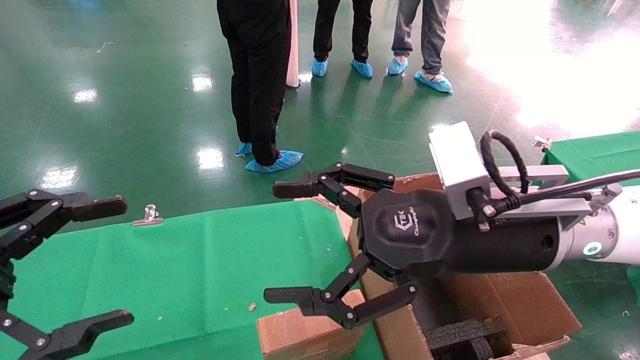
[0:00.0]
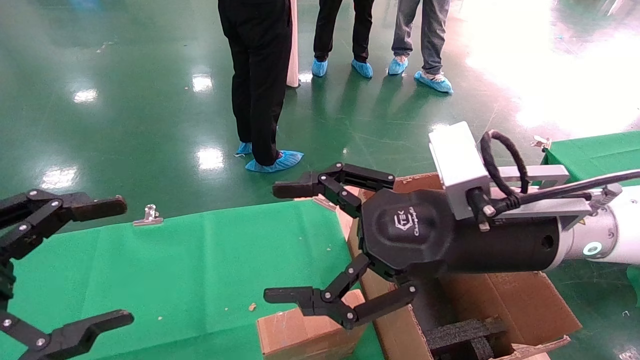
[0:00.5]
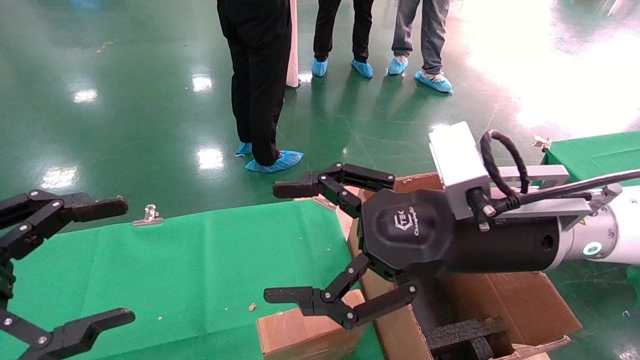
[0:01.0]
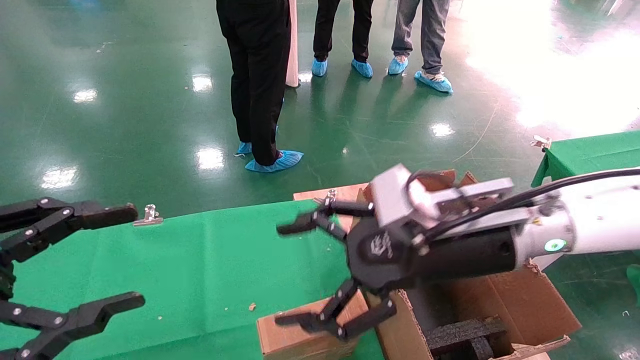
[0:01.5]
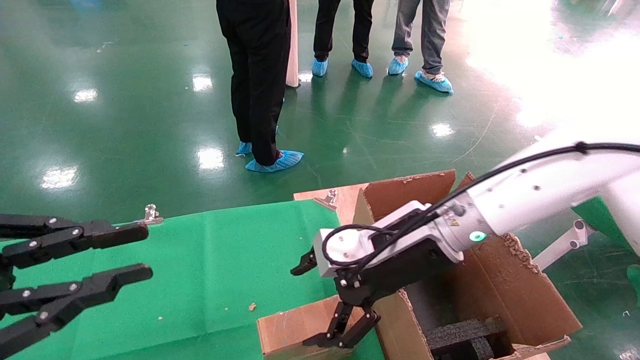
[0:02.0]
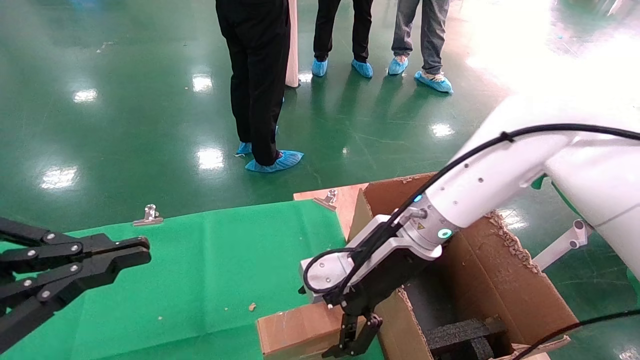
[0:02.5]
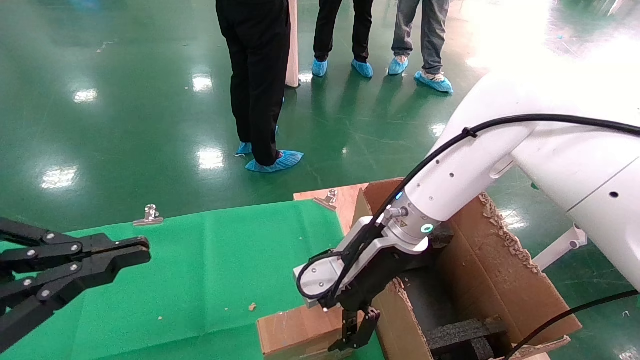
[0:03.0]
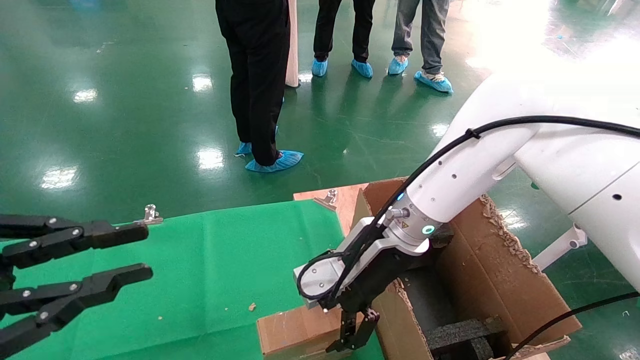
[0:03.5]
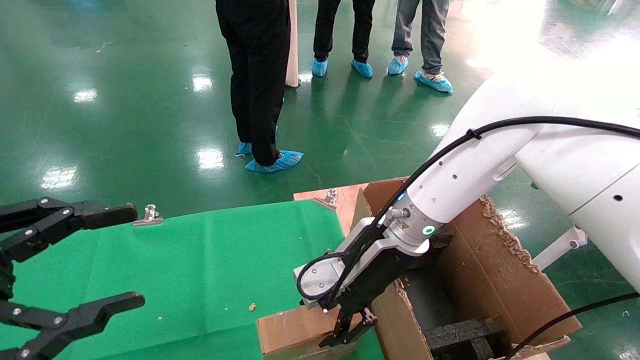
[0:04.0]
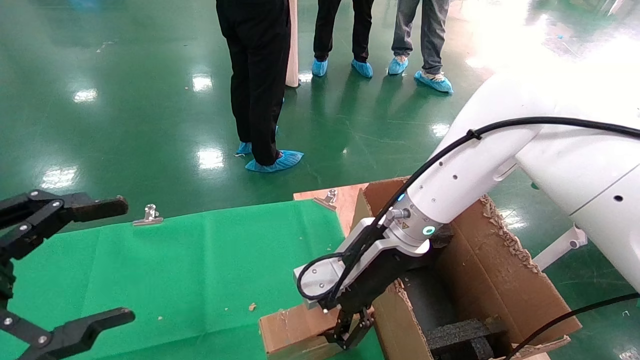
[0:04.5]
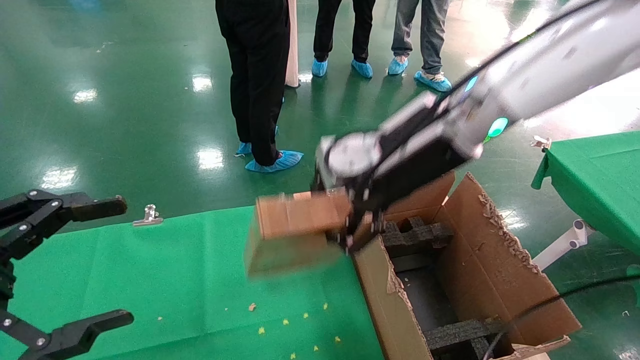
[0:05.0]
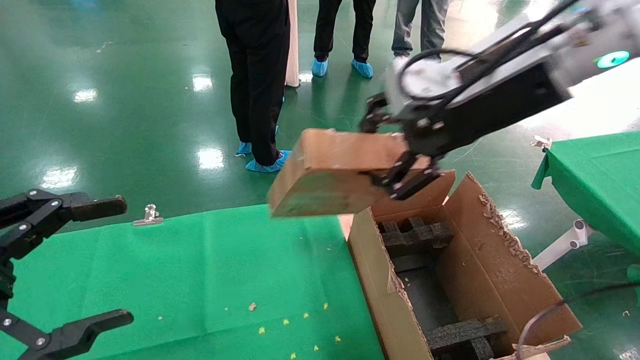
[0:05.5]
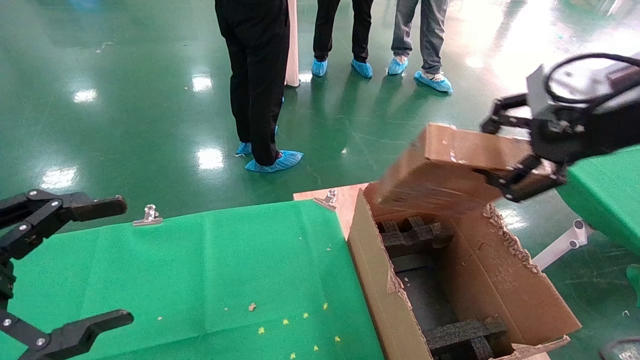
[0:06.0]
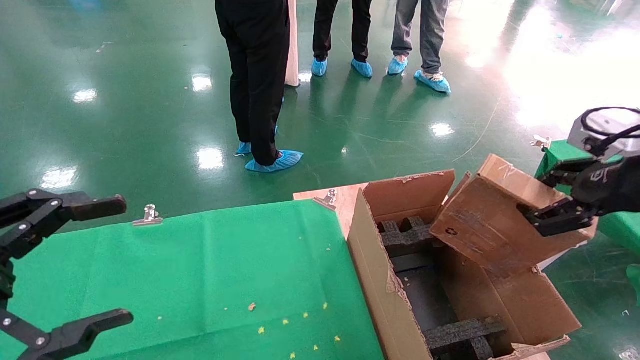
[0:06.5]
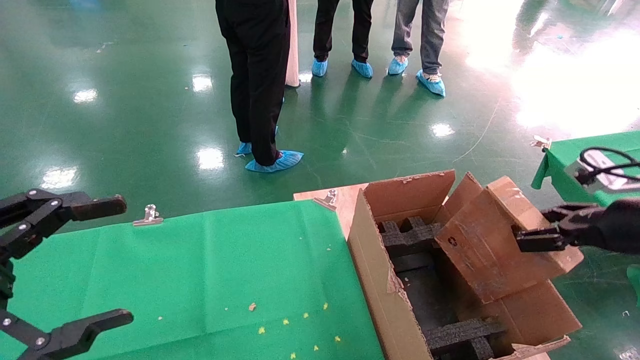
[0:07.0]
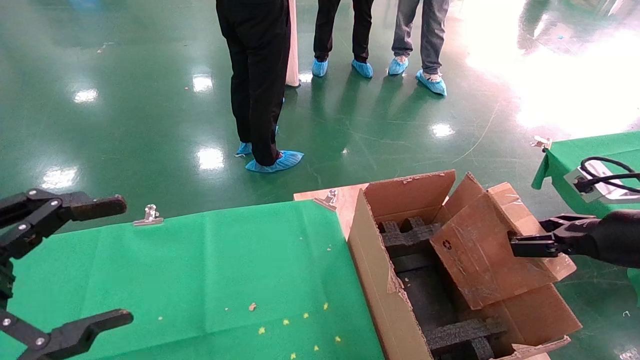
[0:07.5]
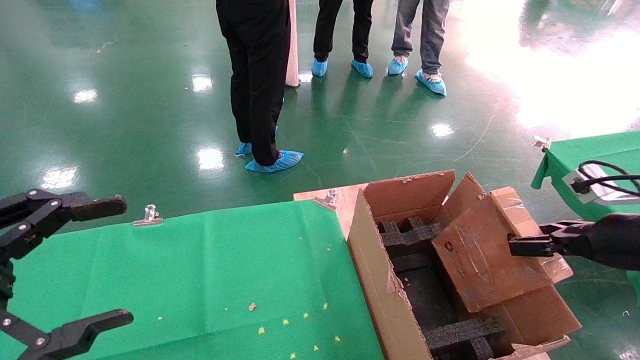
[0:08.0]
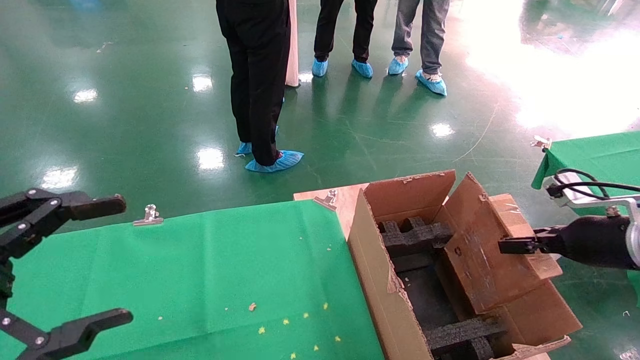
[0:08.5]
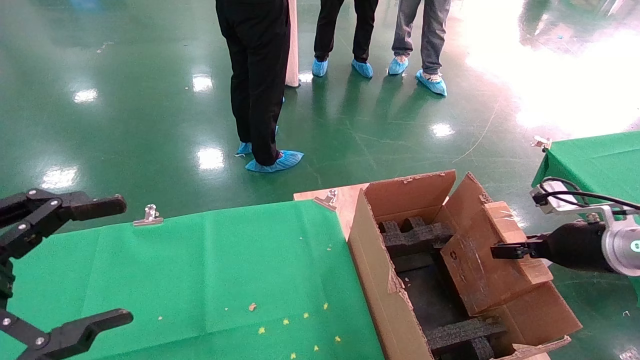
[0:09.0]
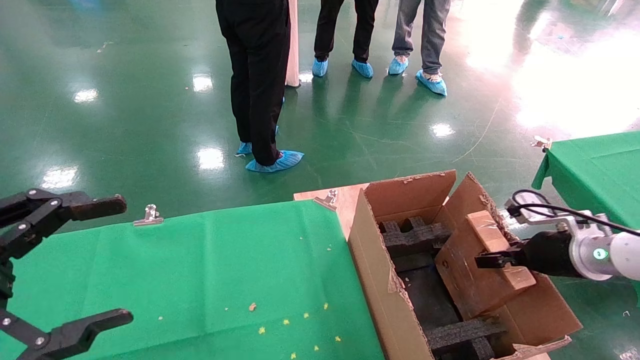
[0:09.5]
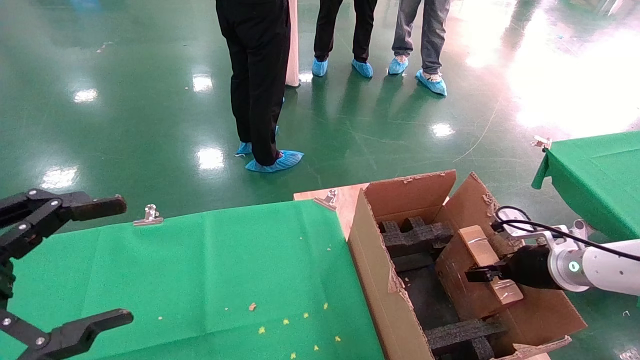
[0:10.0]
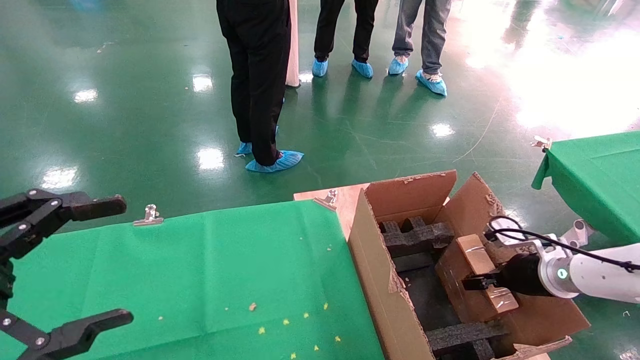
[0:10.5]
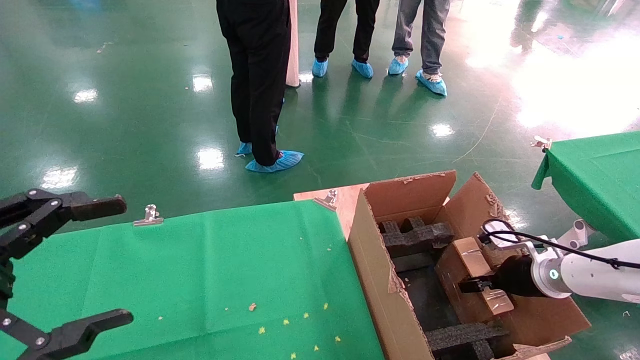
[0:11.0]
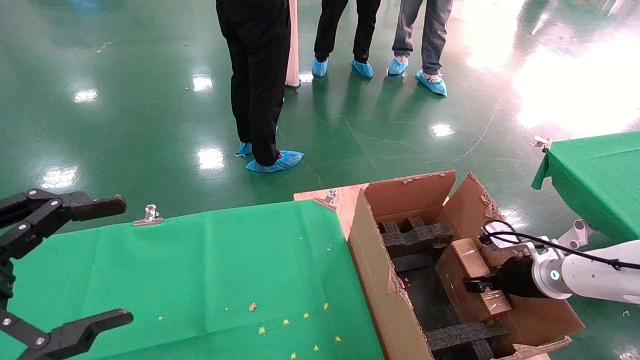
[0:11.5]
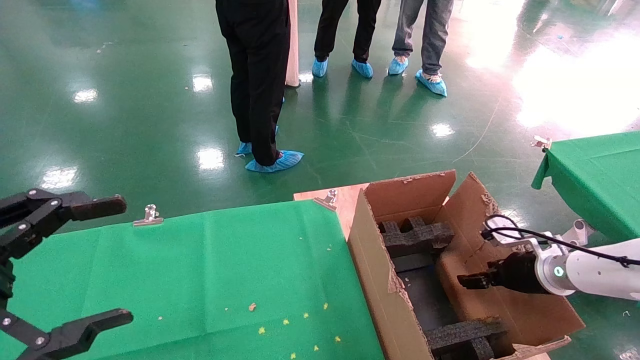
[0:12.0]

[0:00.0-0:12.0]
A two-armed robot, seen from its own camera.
Task of the whole recording: using a robotic arm to pick up a cardboard box and palace it the carton.
Step, 0:01.5 to 0:04.0: Pick up the mouse and the power cord paper box.
0:00.0 to 0:02.0: The left gripper closes its fingers; the right gripper travels forward by approximately 10 cm.
0:02.0 to 0:04.0: The left gripper closes and opens again, while the right gripper closes its fingers.
0:04.0 to 0:06.0: The right gripper is displaced to the right, upward and backward by some 30 cm, and closes. The left gripper opens its fingers.
0:06.0 to 0:08.0: The right gripper travels downward and to the right by some 20 cm.
0:08.0 to 0:10.0: The right gripper travels downward and forward by some 15 cm.
0:10.0 to 0:12.0: The right gripper opens up.

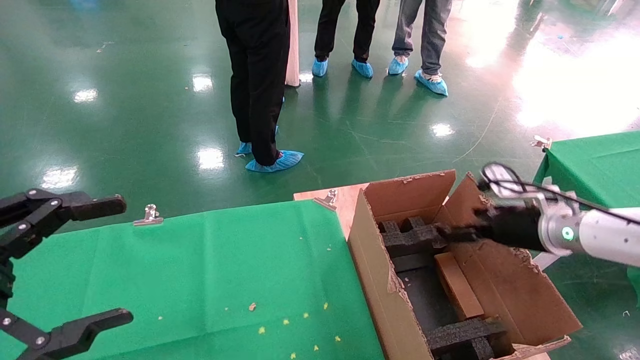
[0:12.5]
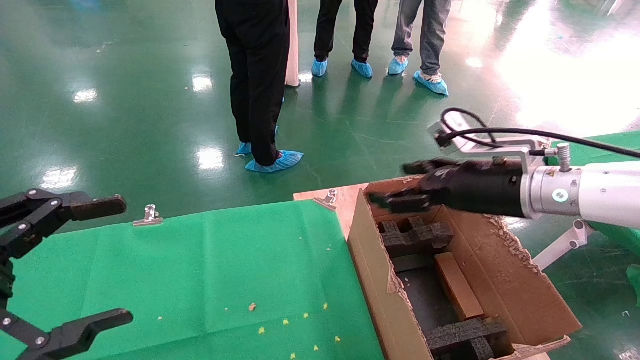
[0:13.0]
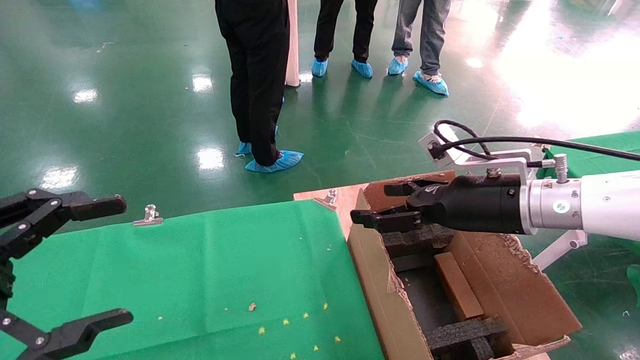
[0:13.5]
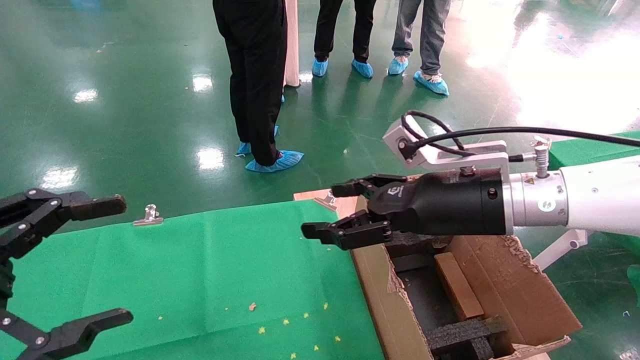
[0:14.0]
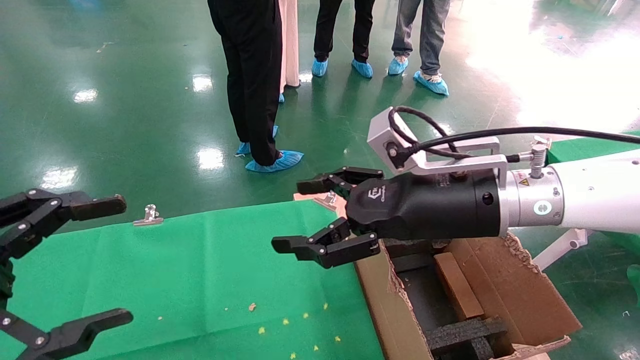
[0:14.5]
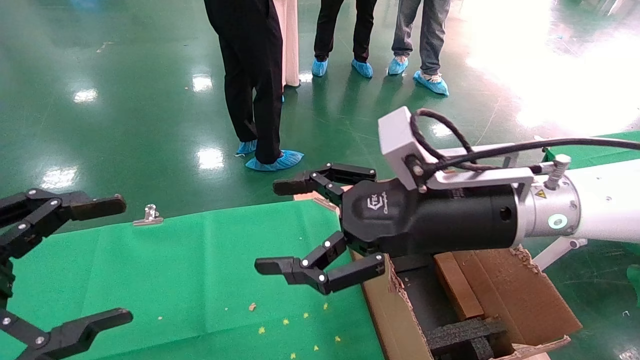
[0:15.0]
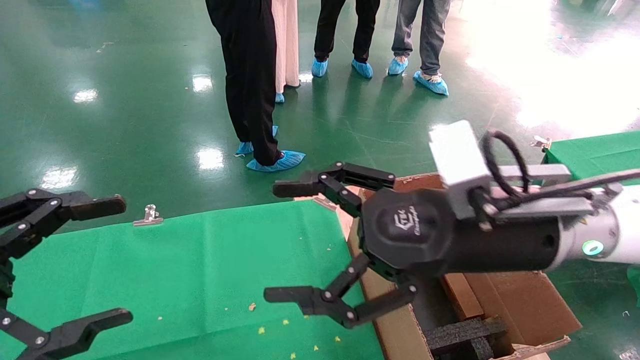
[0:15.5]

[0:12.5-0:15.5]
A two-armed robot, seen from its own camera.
Task of the whole recording: using a robotic arm to pick up a cardboard box and palace it the carton.
0:12.5 to 0:14.0: The right gripper heads to the left and upward, covering approximately 20 cm.
0:14.0 to 0:15.5: The right gripper shifts approximately 5 cm backward.
